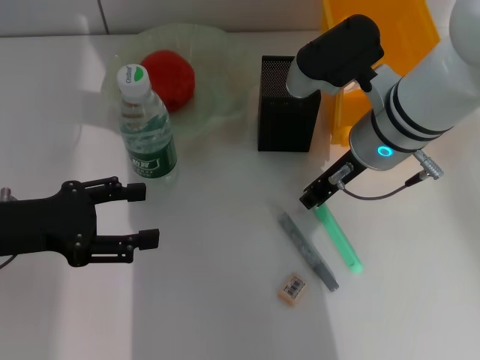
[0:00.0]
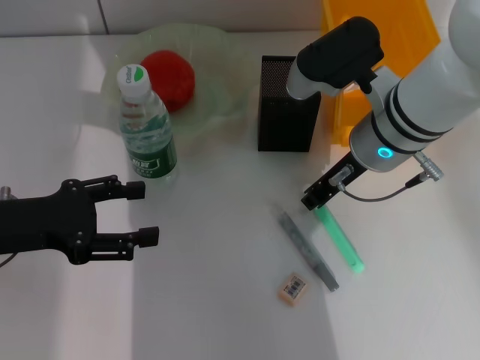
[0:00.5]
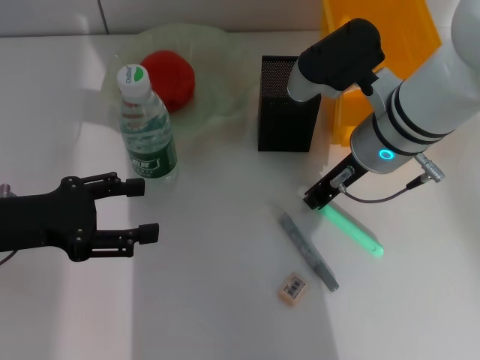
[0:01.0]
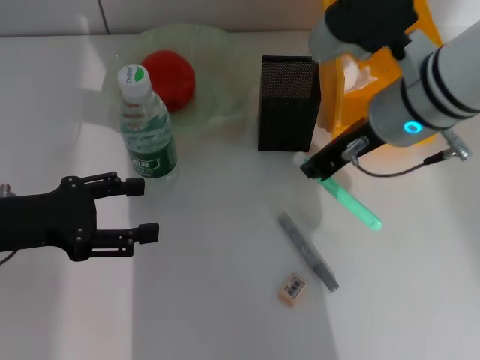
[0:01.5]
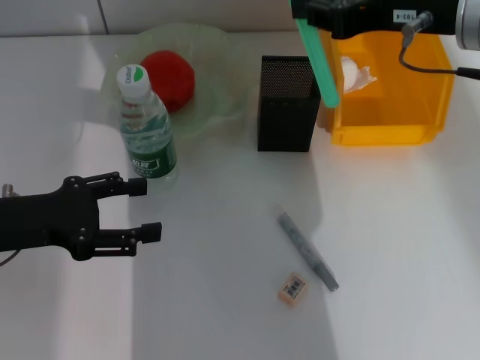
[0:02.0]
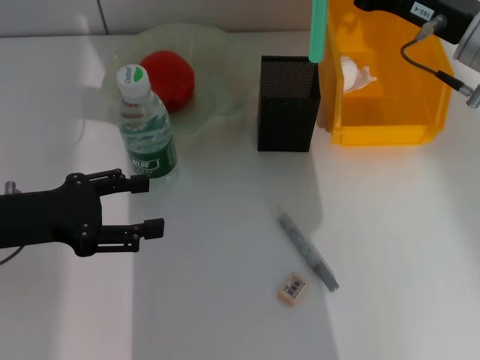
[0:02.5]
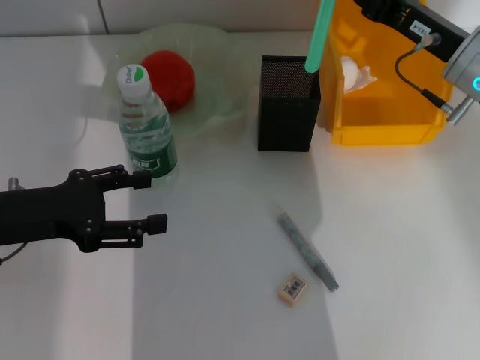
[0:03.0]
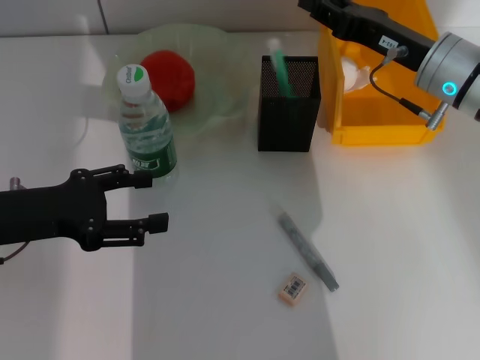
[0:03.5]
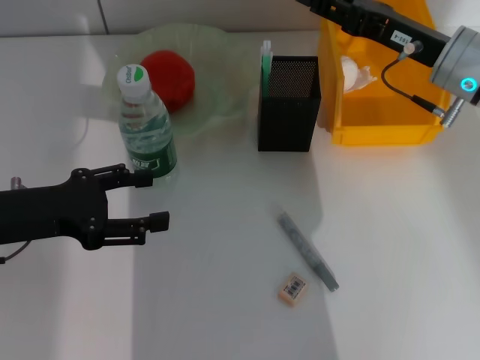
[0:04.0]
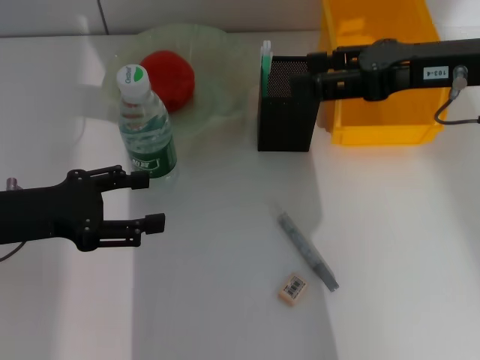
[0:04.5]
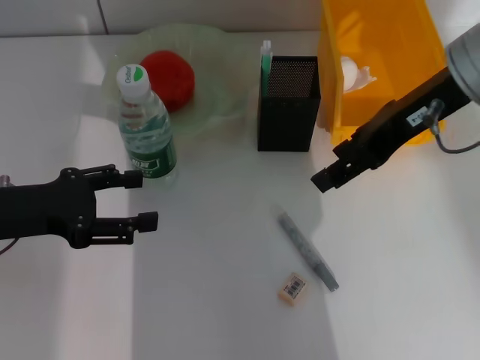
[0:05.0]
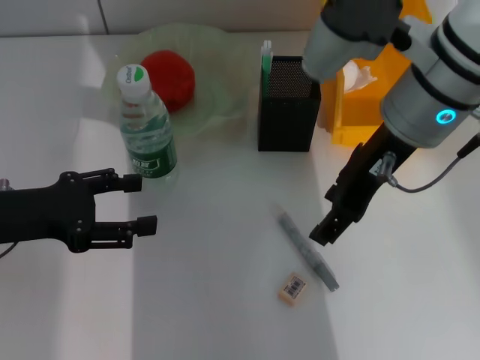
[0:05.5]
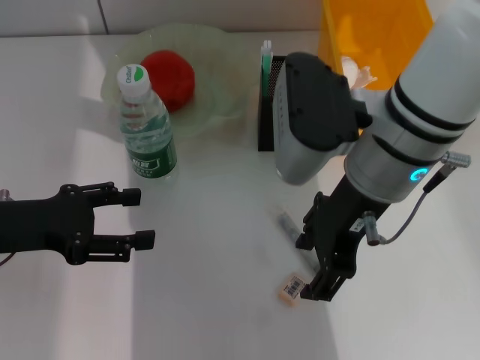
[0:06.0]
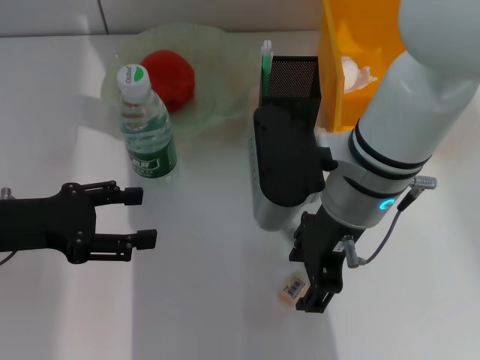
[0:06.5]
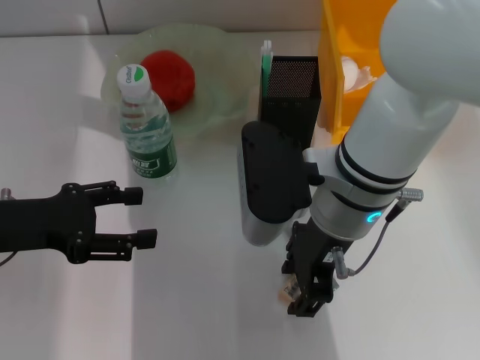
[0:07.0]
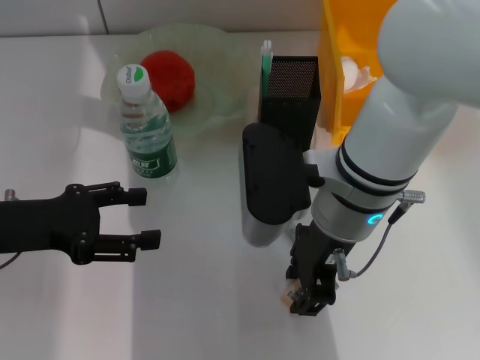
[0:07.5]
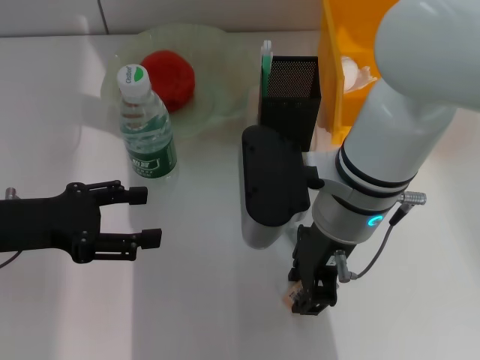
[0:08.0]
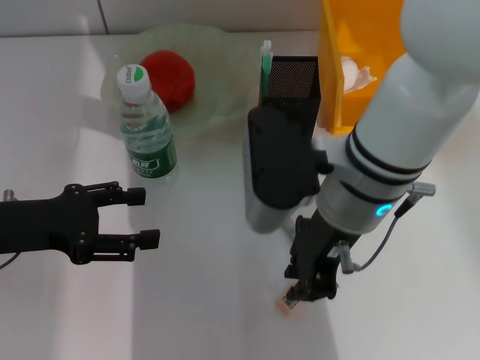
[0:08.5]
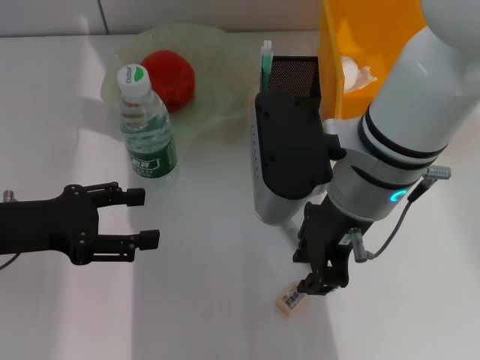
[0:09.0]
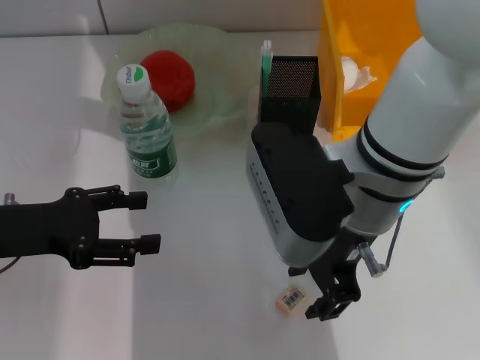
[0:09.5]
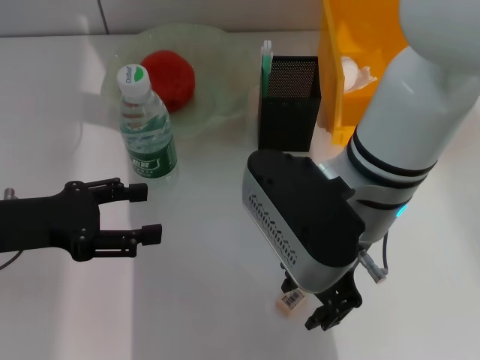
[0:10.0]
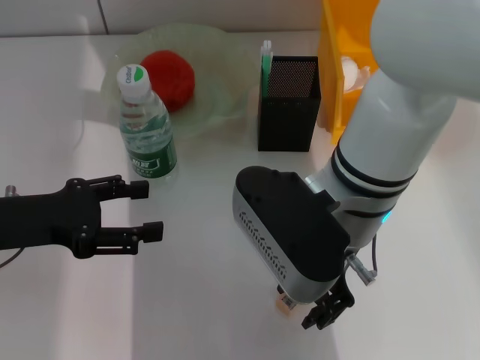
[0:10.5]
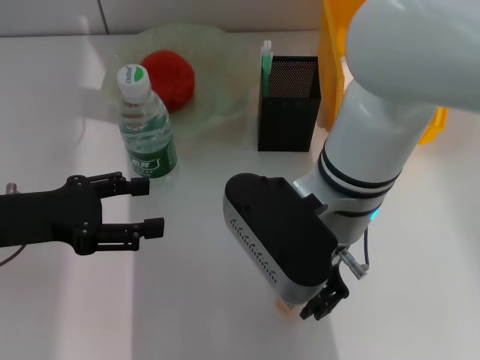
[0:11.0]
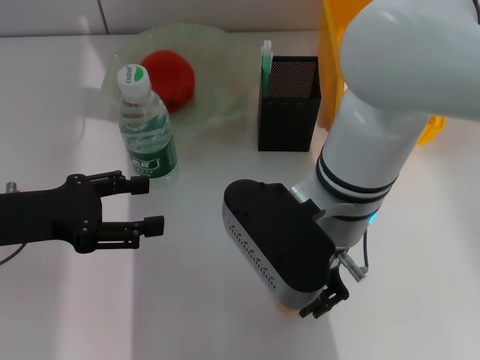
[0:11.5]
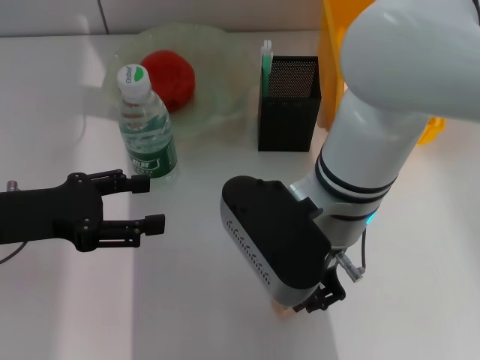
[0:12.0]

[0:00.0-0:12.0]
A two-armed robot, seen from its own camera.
Step, 1.0 to 4.0 s: Place the blue utility knife into the pen holder with the right hand.
Step, 4.5 to 11.5 s: Grab the eraser with the right hand.
0.0 to 2.0 s: The right gripper travels upward and to the right by roughly 15 cm.
2.0 to 4.0 s: The right gripper moves downward and forward, approximately 15 cm, and opens up.
4.0 to 6.0 s: The right gripper heads to the left, backward and upward, covering about 15 cm.
6.0 to 8.0 s: The right gripper ends up about 5 cm from where it was, and closes its fingers.
8.0 to 10.0 s: The right gripper closes, then reopens.
10.0 to 12.0 s: The right gripper closes its fingers.

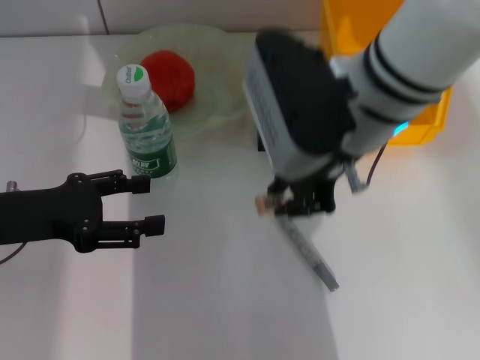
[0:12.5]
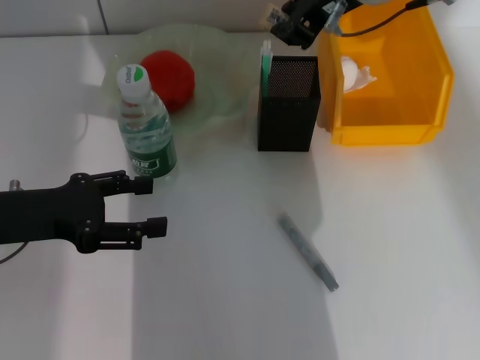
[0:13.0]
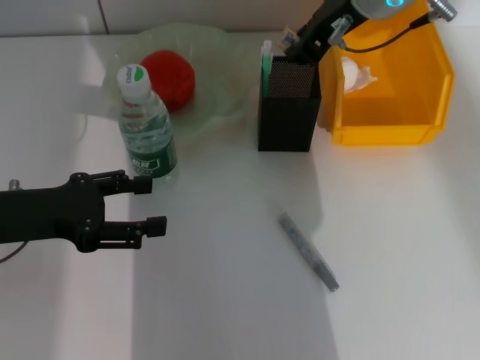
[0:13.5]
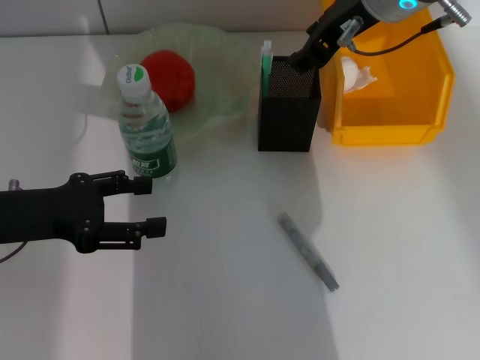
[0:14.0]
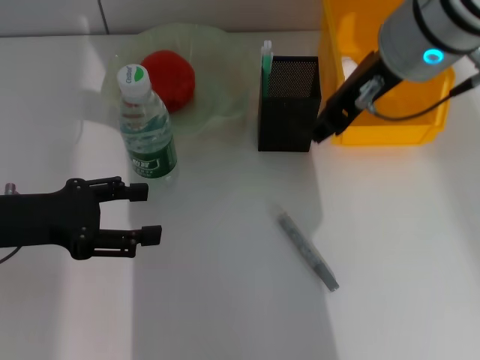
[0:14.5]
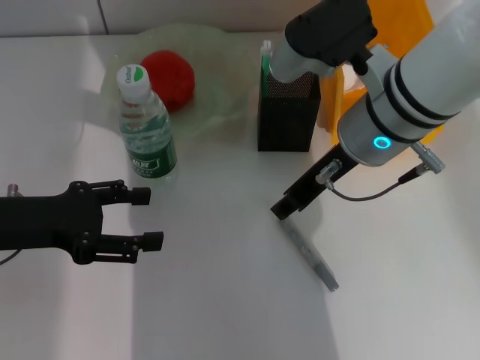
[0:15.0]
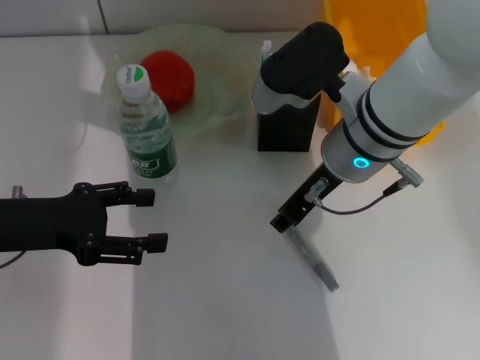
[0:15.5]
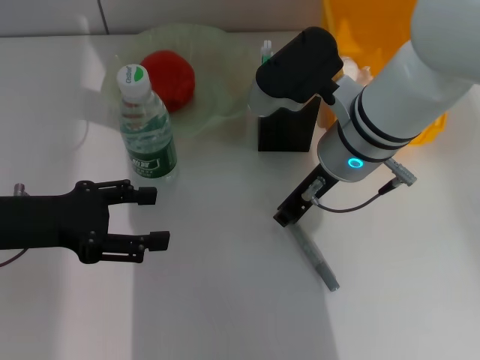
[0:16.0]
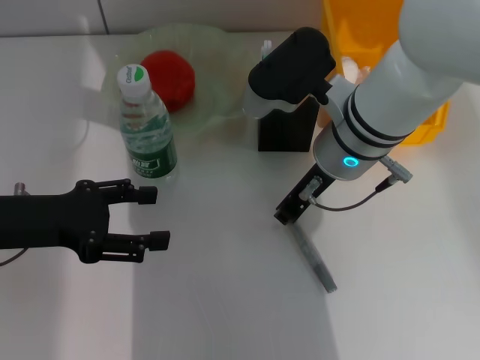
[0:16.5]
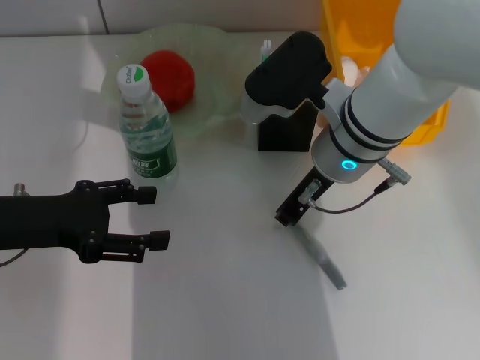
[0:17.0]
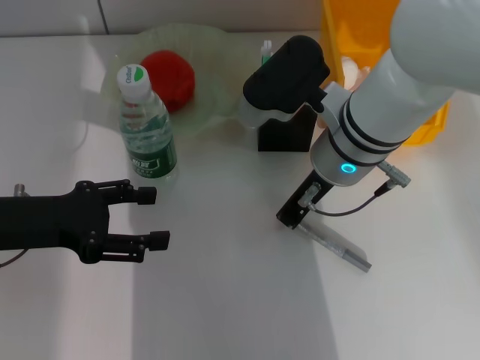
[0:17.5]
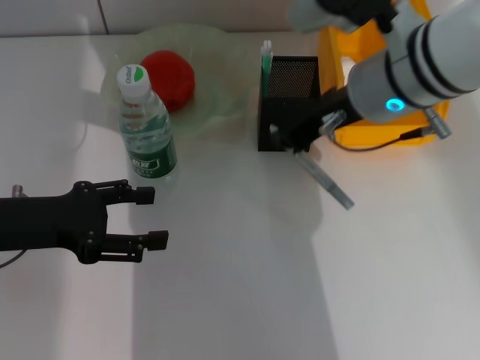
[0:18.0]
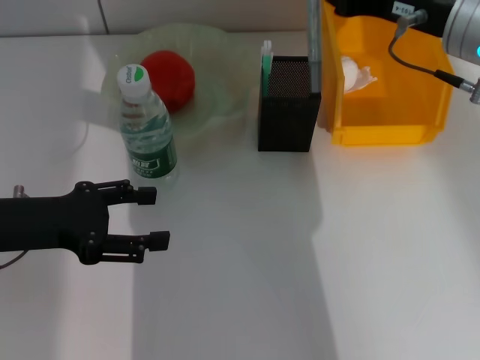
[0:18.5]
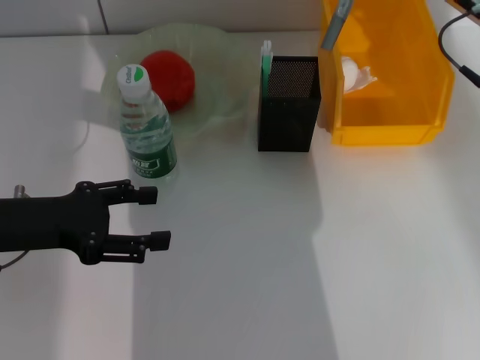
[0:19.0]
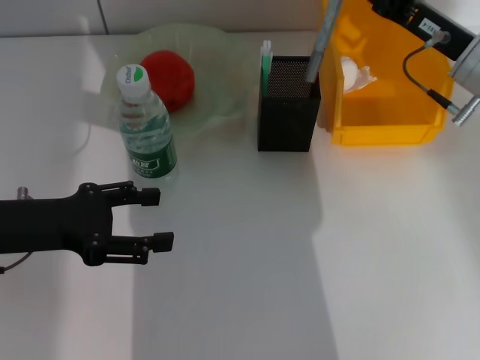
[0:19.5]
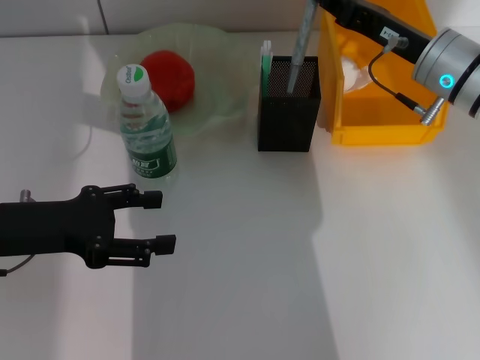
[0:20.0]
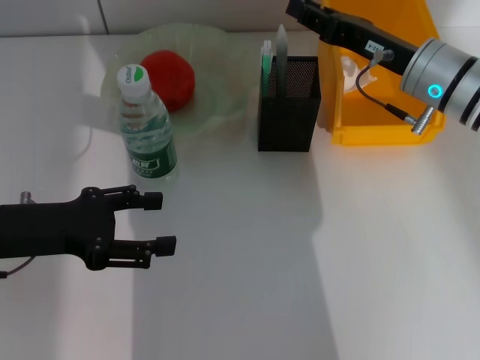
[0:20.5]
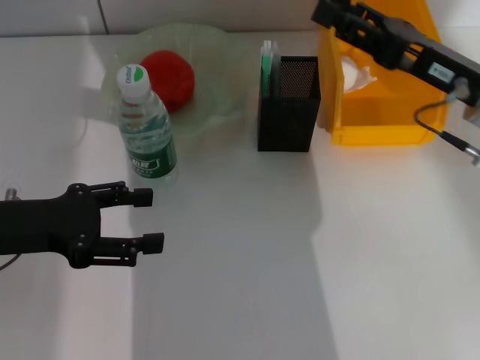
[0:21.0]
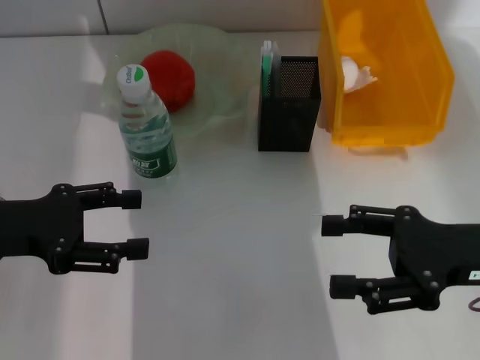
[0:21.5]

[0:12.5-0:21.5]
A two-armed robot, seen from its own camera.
Step, 12.5 to 13.5 s: Put the eraser into the pen holder with the right hand.
Step, 14.5 to 17.0 s: Grab the gray glue with the right hand.
Step, 17.5 to 20.5 s: Place the gray glue into the pen holder with the right hand.
12.5 to 14.5 s: The right gripper moves roughly 10 cm forward and comes back, and opens up.
14.5 to 17.0 s: The right gripper goes approximately 10 cm downward, and closes up.
17.0 to 19.5 s: The right gripper travels to the right by about 15 cm.
19.5 to 21.5 s: The right gripper is displaced backward by roughly 15 cm, and opens.

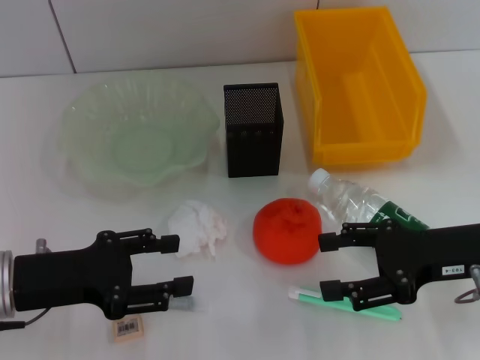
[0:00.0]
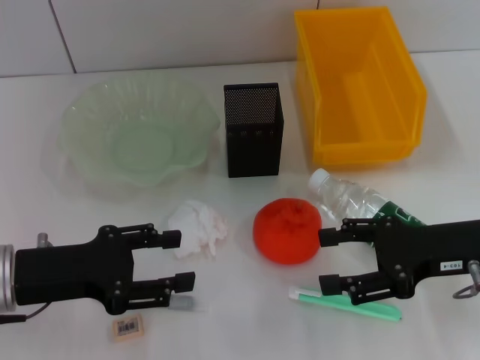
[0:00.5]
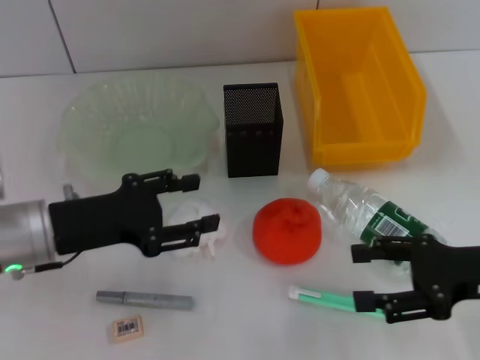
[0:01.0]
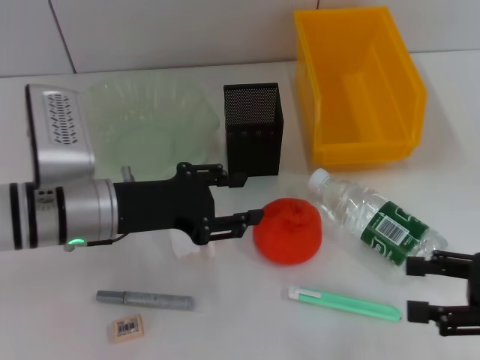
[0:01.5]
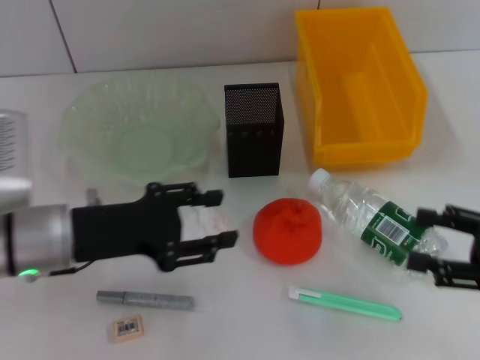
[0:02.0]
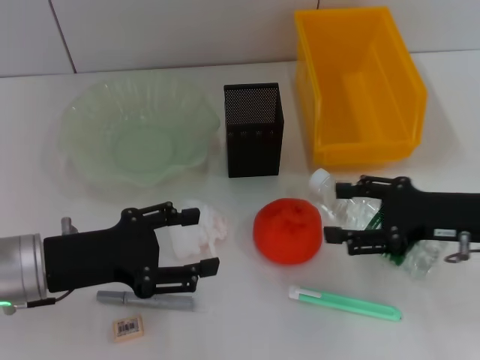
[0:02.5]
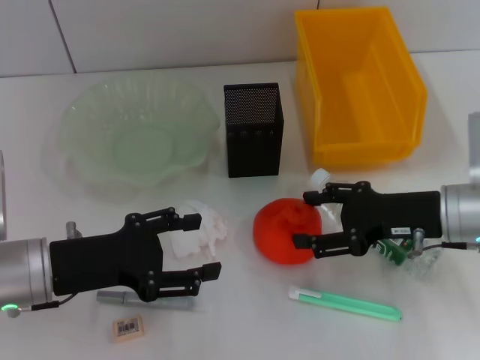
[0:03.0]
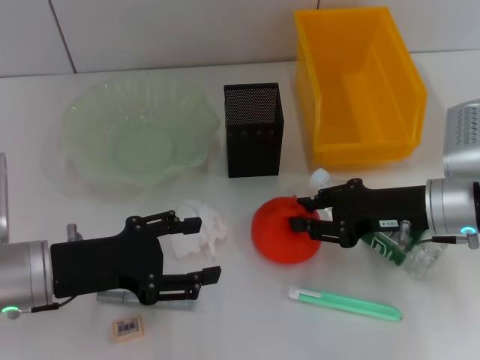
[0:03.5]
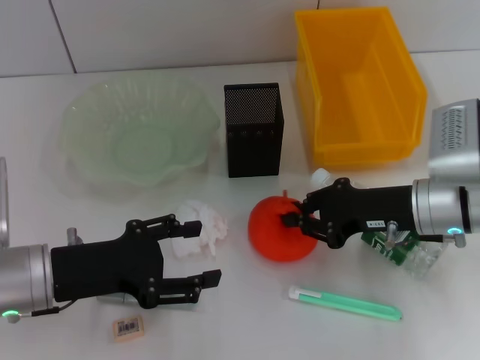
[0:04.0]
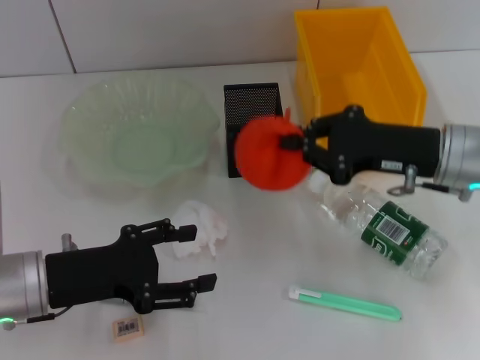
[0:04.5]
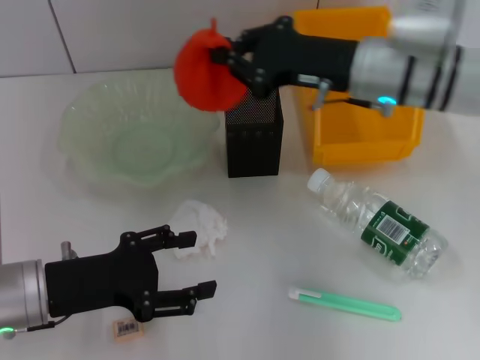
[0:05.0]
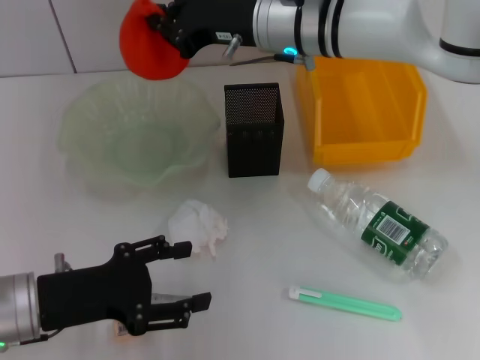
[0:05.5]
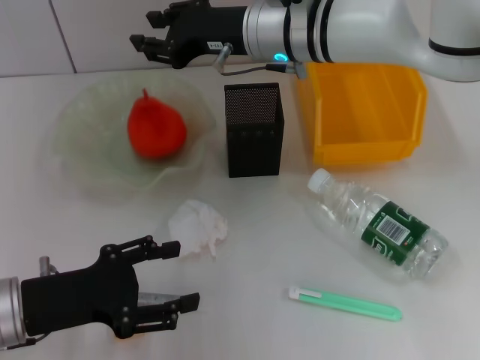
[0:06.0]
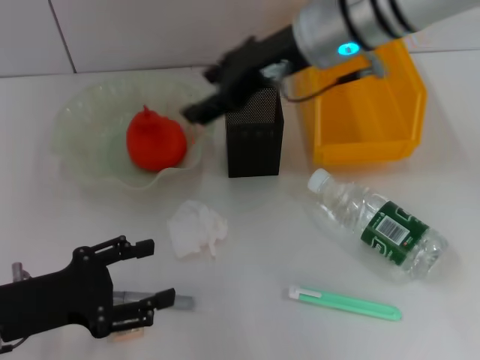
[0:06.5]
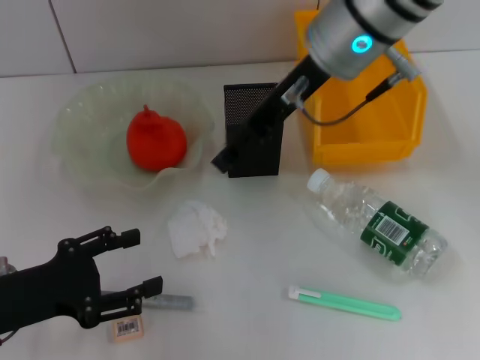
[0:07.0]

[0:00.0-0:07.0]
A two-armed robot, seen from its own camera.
Step, 0.0 to 3.0 s: Grab the orange with the right hand.
Step, 3.5 to 6.0 s: Place the orange into the fruit bowl with the right hand.
0.0 to 2.0 s: The left gripper goes roughly 5 cm to the right. The right gripper heads to the right and backward, covering some 10 cm.
2.0 to 3.5 s: The right gripper moves forward and to the left, approximately 15 cm, and closes.
3.5 to 5.0 s: The right gripper shifts approximately 15 cm upward, forward and to the left, and closes.
5.0 to 7.0 s: The right gripper moves upward and to the left, some 10 cm, and opens. Meanwhile the left gripper moves roughly 5 cm.
